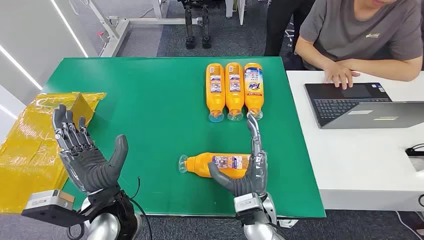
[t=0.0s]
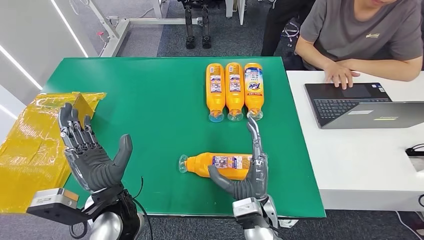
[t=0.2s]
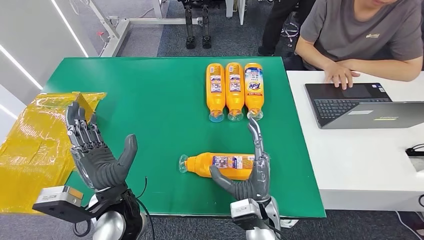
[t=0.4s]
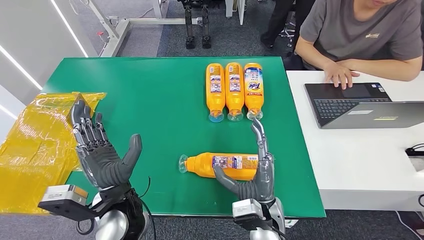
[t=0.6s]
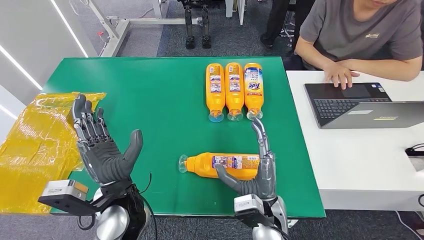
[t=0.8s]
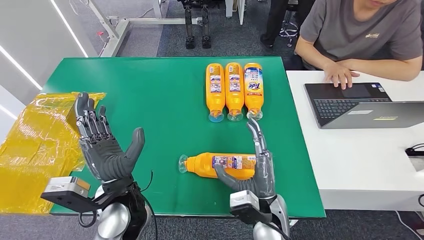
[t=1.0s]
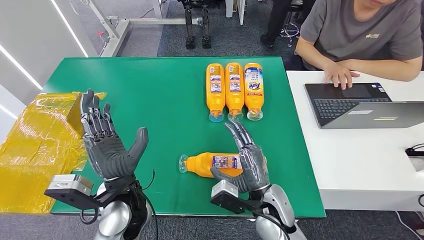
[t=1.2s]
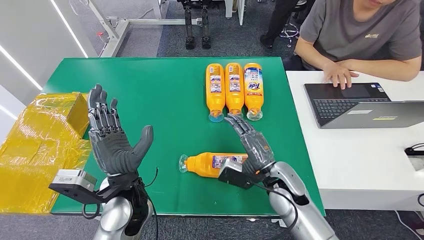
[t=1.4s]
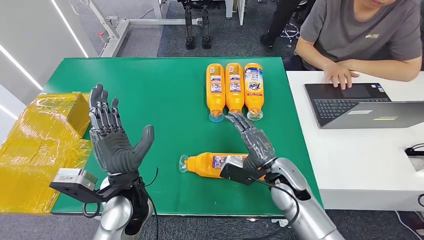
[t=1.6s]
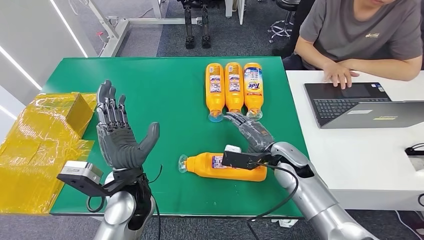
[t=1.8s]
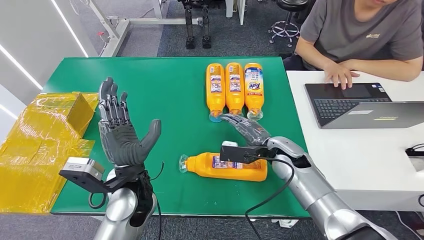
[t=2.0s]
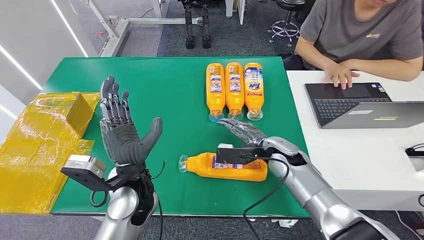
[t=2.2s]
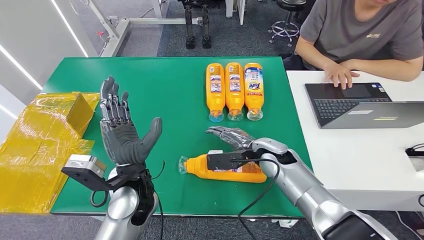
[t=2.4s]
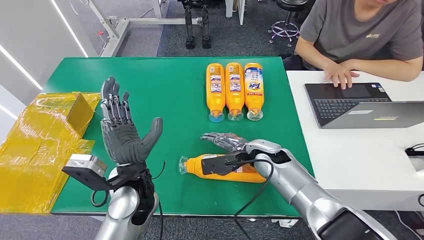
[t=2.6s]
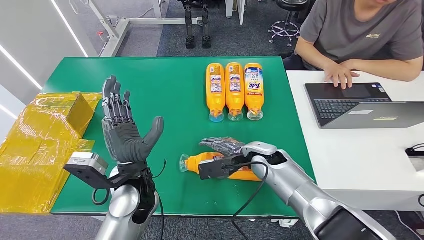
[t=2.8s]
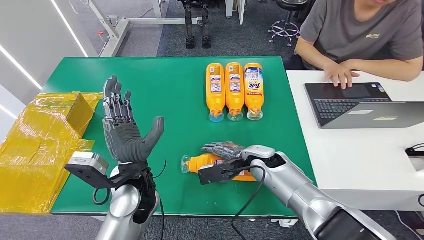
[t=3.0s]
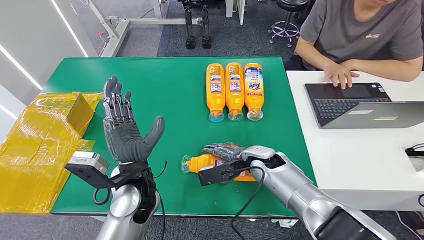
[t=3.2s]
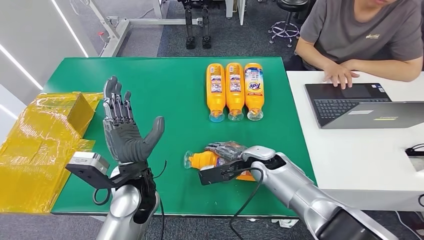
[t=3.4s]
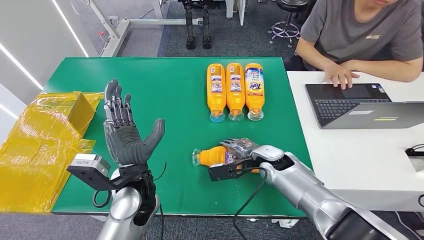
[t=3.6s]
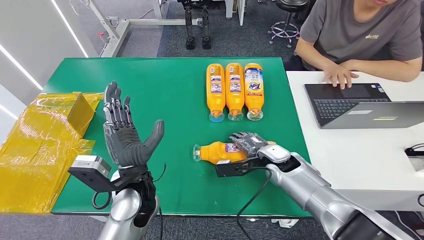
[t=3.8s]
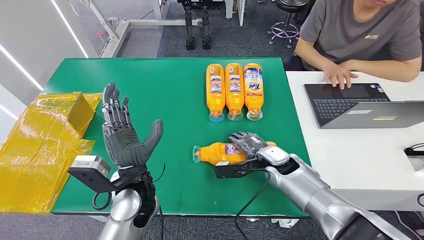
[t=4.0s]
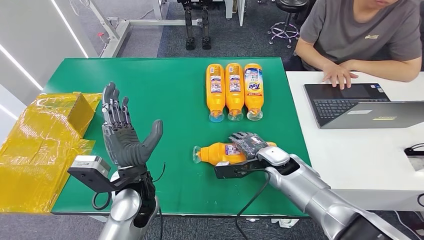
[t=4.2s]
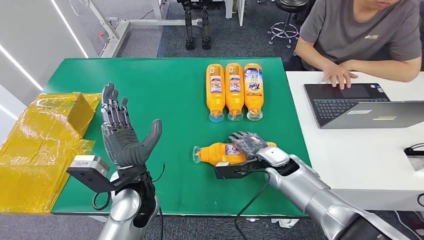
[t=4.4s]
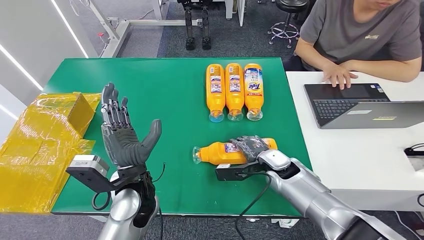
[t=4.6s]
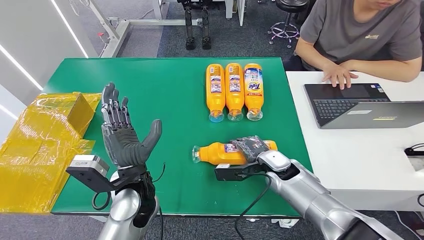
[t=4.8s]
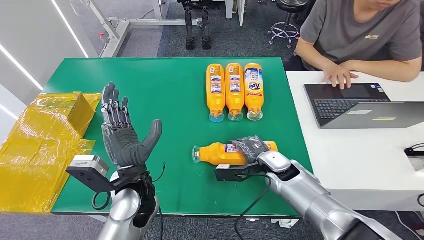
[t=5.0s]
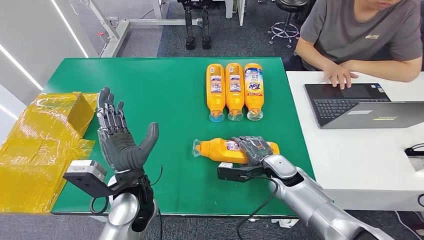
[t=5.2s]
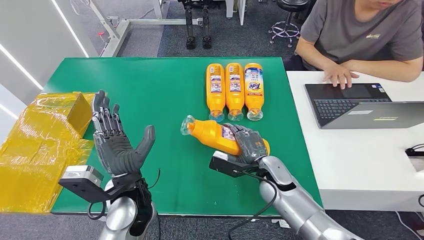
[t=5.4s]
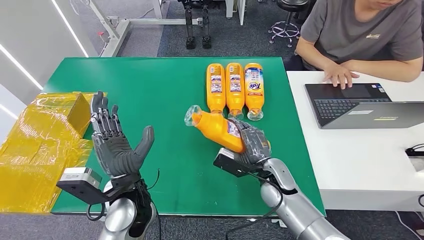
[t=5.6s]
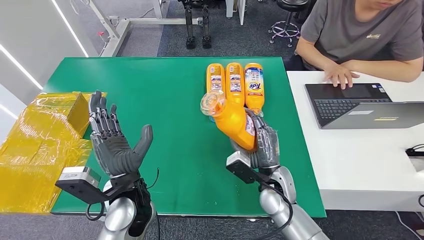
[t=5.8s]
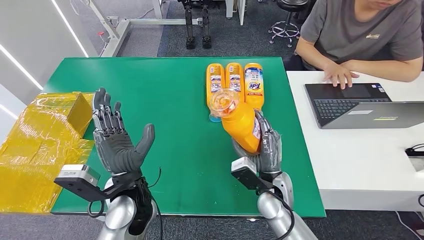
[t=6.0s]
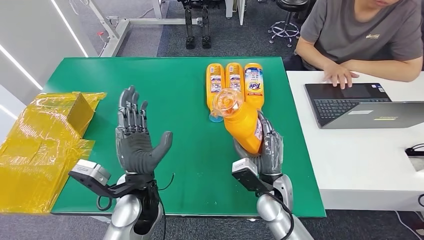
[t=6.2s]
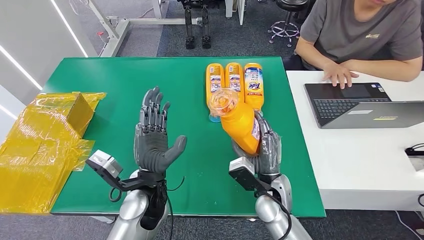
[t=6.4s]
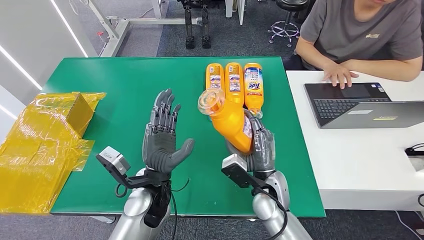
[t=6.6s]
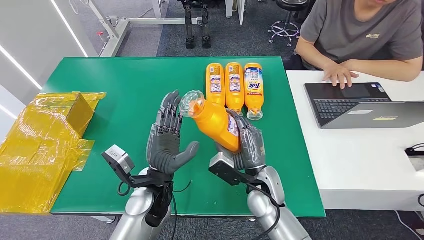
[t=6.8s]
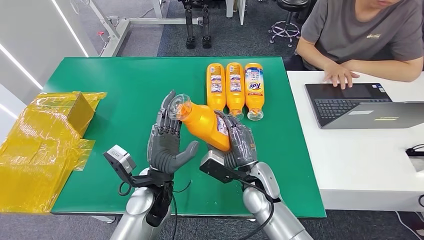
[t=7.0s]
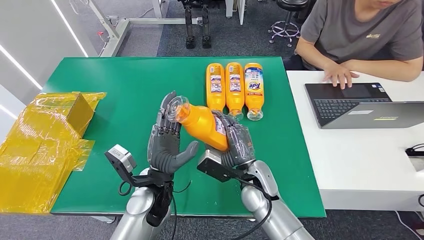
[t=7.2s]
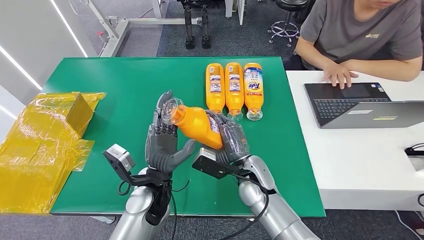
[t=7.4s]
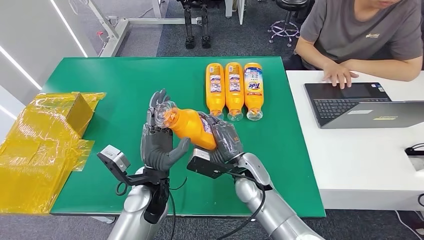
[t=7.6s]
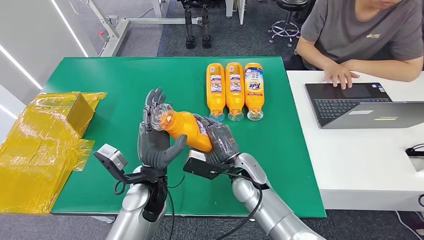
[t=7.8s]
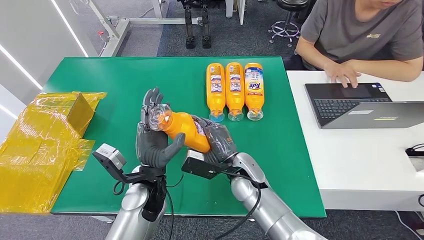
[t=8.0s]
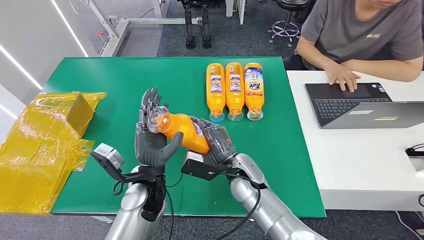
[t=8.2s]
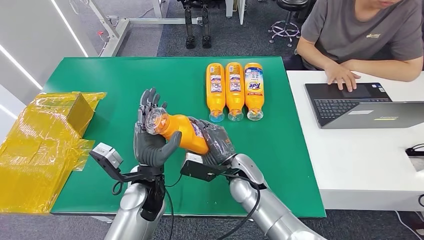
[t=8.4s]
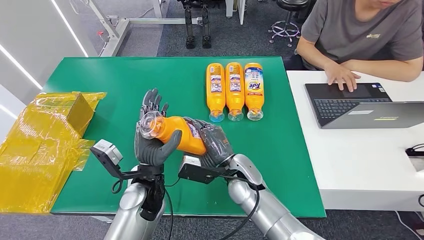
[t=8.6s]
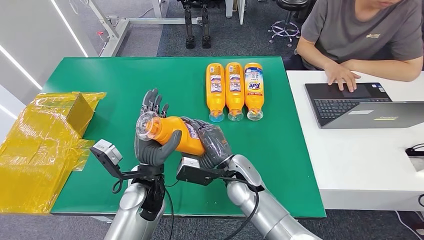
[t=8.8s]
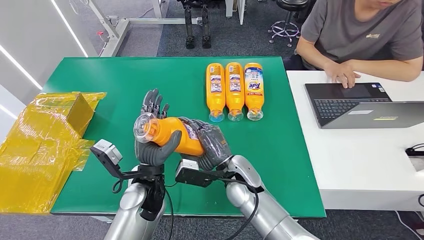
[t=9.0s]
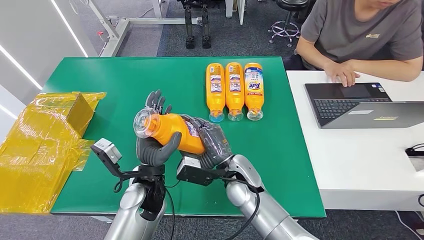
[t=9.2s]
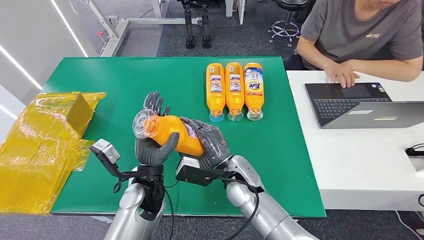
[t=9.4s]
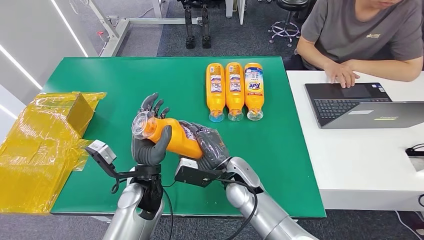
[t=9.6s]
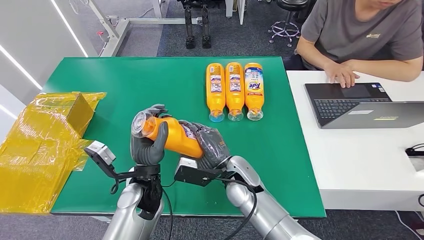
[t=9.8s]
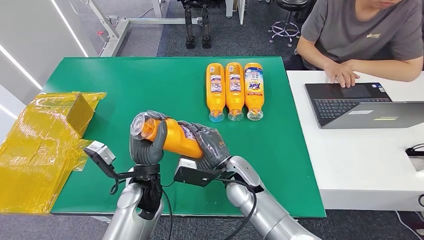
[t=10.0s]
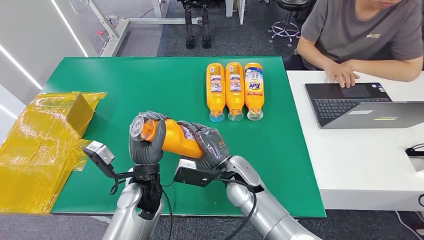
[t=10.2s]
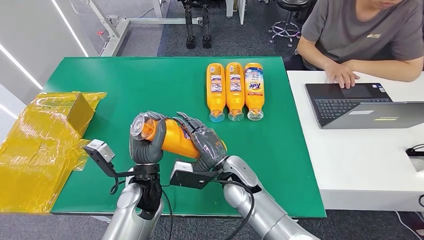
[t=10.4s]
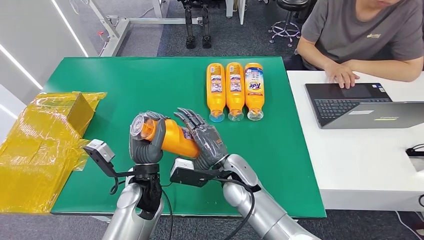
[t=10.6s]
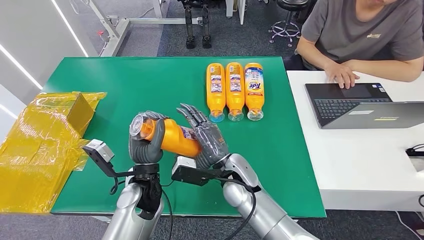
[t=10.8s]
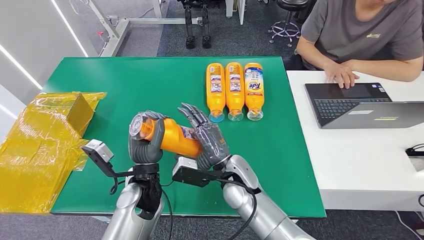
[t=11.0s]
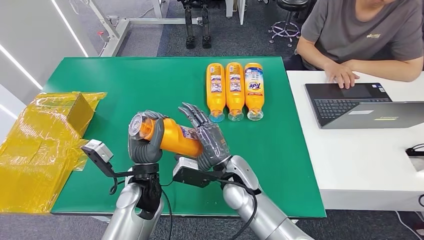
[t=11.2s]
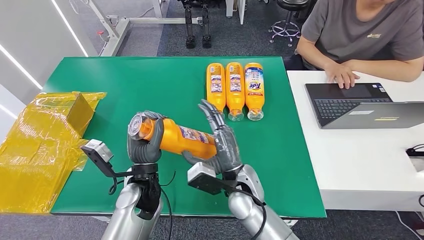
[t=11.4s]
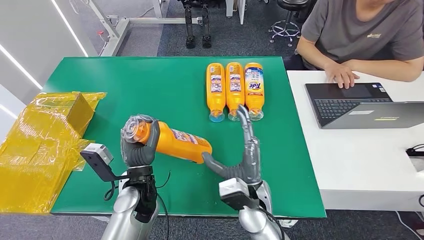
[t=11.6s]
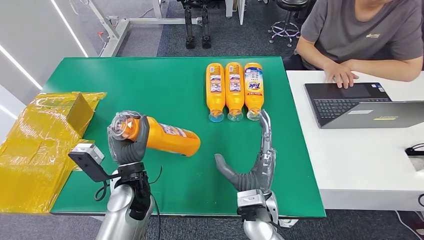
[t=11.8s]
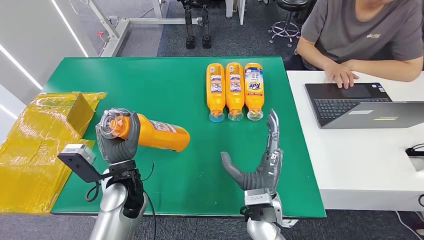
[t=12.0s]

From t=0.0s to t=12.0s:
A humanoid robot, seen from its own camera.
Step, from t=0.0s to t=6.0s: Pick up the bottle from the table.
From t=1.6s to t=3.0s: The right hand moves forward, approximately 5 cm.
From t=3.0s to t=4.4s: The right hand shifts about 5 cm to the right.
From t=4.4s to t=6.0s: The right hand heads backward, covering about 10 cm.
From t=6.0s to t=7.6s: The left hand ends up approximately 5 cm from where it was. Meanwhile the right hand moves to the left, some 5 cm.
From t=7.6s to t=10.4s: There are only small adjustments of the hands.
From t=10.4s to t=12.0s: The right hand heads backward, covering approximately 10 cm.

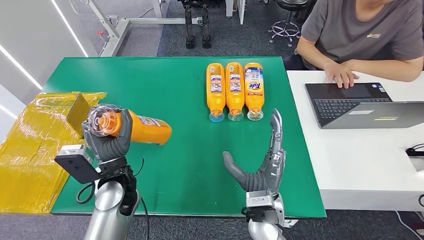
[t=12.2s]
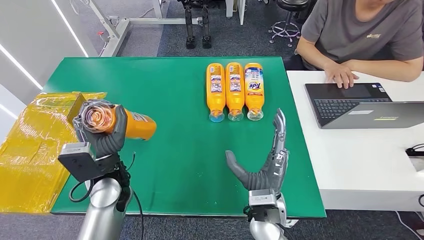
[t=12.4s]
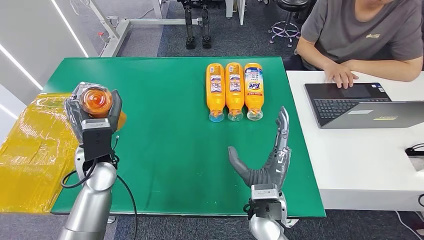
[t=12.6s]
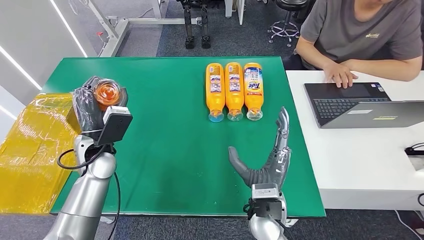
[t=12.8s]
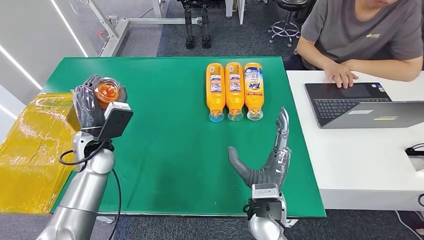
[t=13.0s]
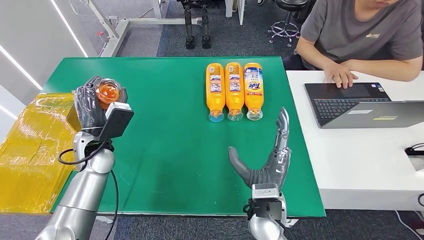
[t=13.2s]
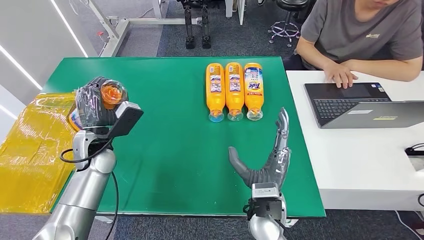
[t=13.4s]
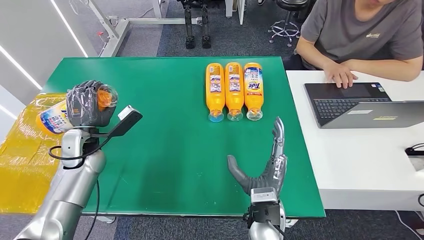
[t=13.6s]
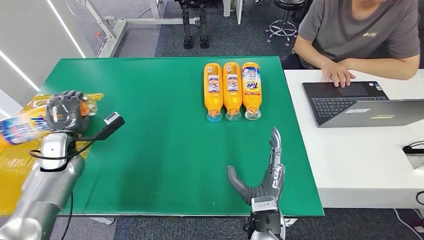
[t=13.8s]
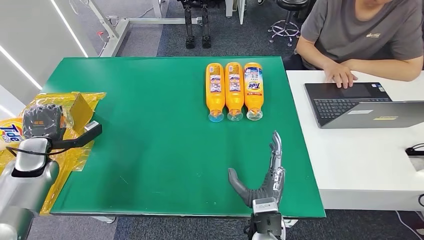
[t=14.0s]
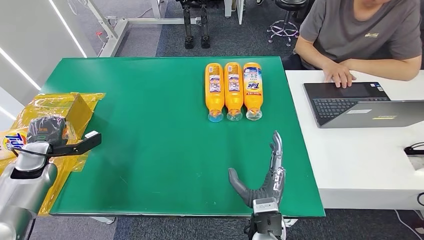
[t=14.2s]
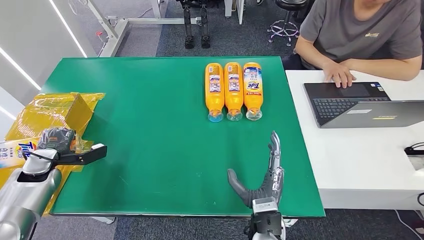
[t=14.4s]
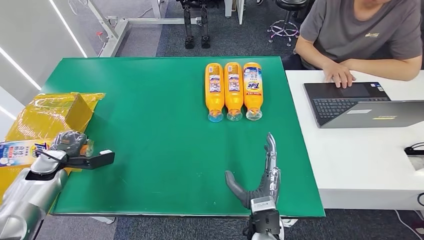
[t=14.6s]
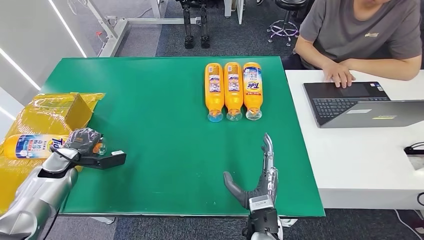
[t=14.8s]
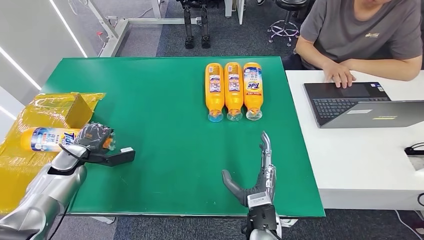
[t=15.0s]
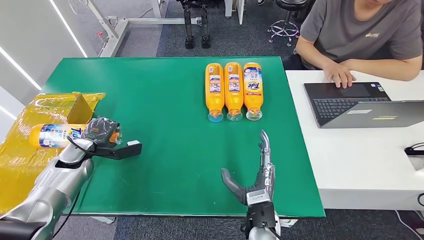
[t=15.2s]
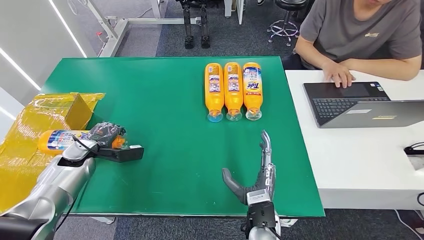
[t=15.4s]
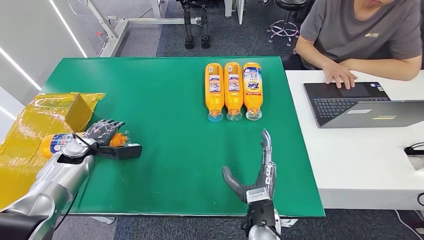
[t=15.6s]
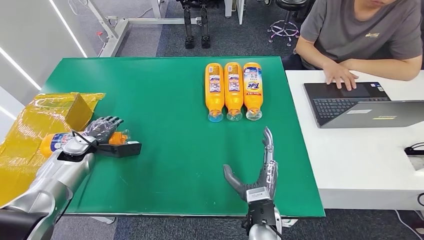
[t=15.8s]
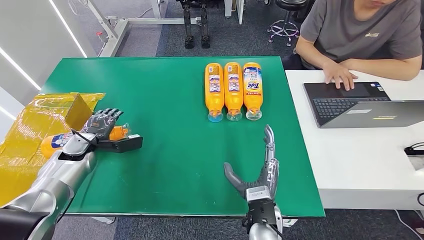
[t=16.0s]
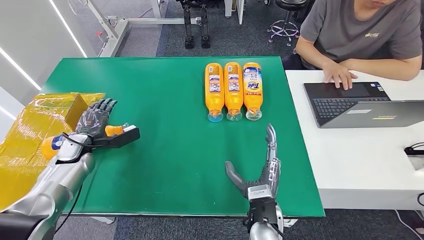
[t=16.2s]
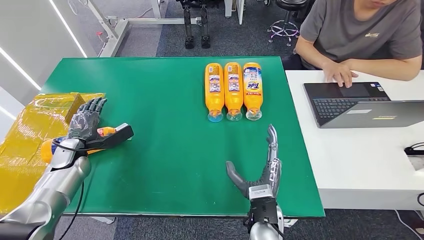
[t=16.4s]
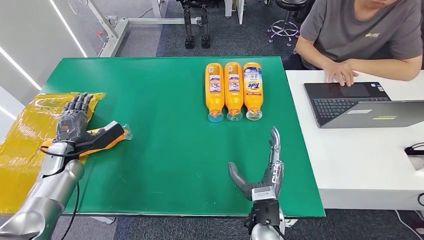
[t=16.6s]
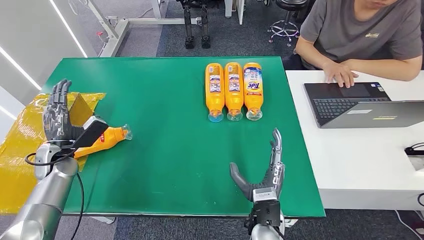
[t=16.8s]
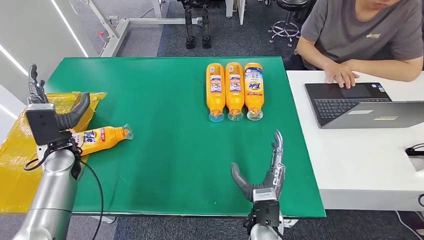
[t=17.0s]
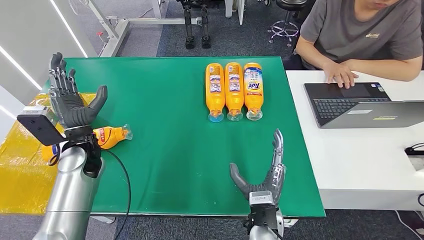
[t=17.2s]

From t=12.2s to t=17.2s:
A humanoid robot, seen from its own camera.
Step, from t=12.2s to t=17.2s: Turn the bottle to the front side.
From t=13.8s to t=15.6s: The left hand moves some 10 cm to the left and comes back.
From t=15.6s to t=17.2s: The left hand heads upward and to the right, covering about 10 cm.
